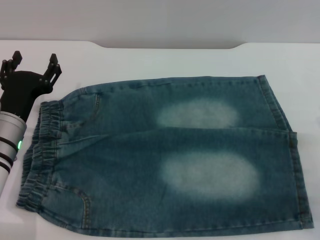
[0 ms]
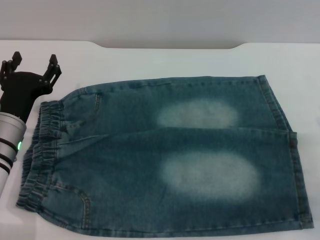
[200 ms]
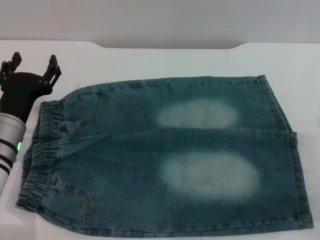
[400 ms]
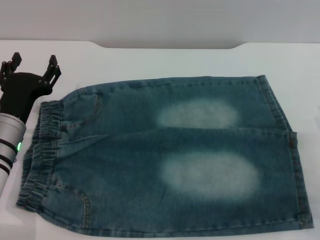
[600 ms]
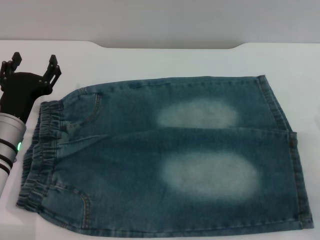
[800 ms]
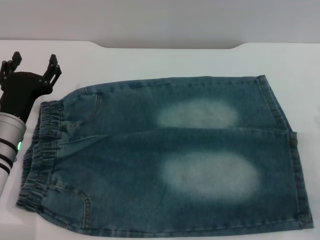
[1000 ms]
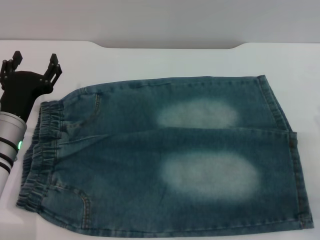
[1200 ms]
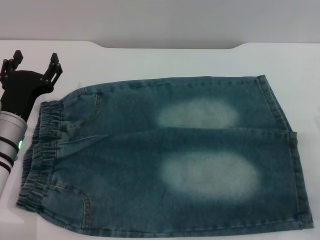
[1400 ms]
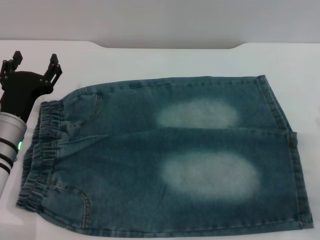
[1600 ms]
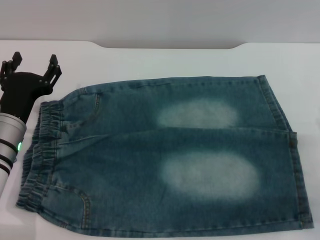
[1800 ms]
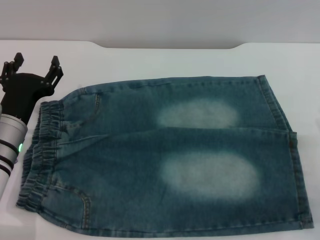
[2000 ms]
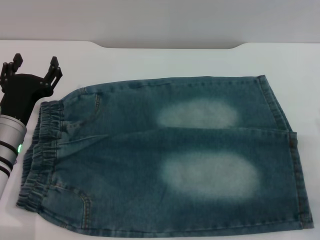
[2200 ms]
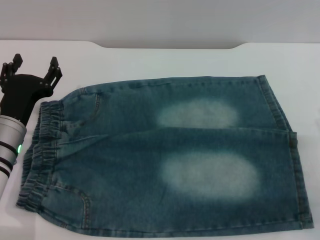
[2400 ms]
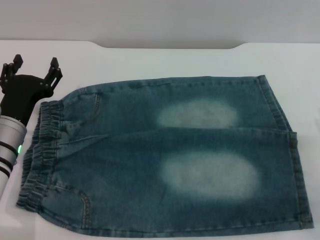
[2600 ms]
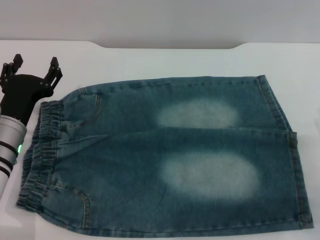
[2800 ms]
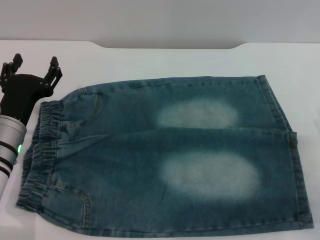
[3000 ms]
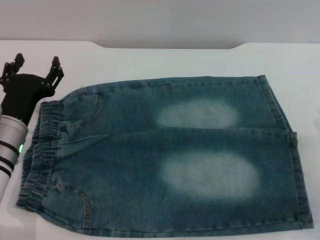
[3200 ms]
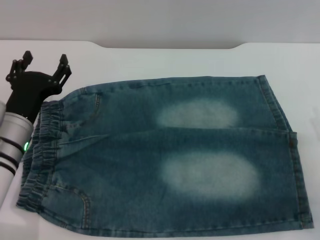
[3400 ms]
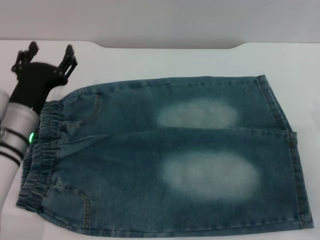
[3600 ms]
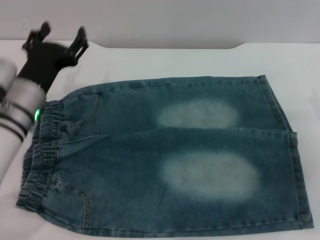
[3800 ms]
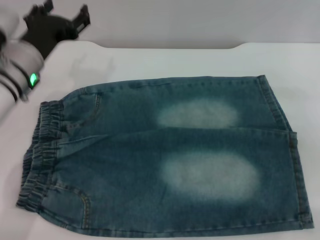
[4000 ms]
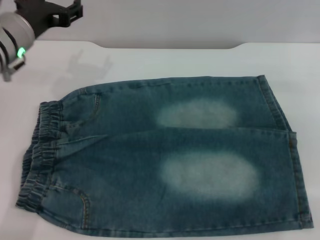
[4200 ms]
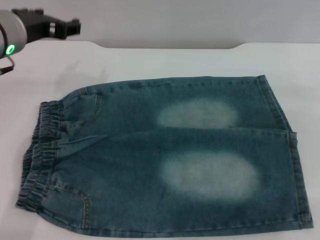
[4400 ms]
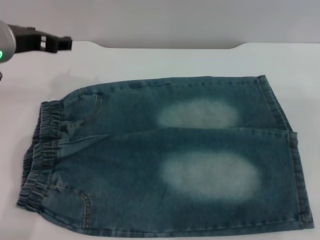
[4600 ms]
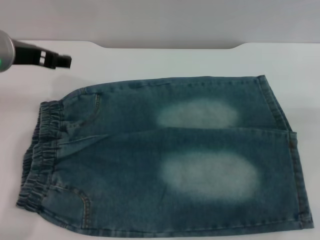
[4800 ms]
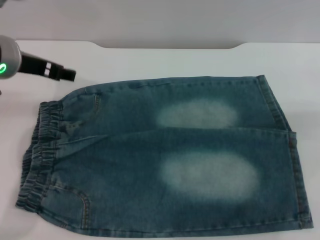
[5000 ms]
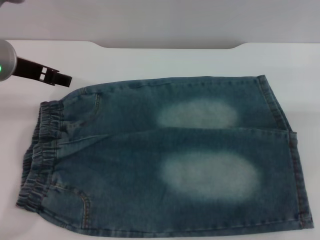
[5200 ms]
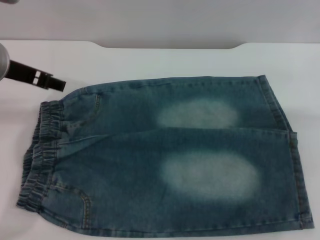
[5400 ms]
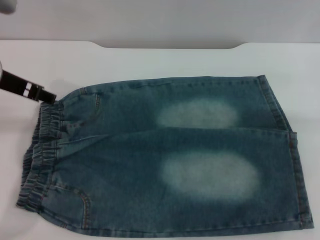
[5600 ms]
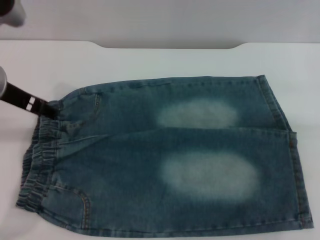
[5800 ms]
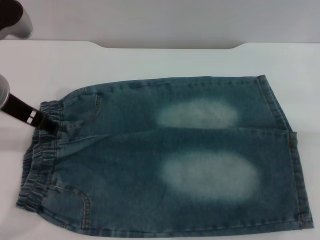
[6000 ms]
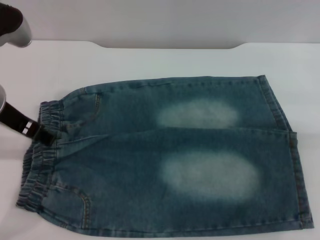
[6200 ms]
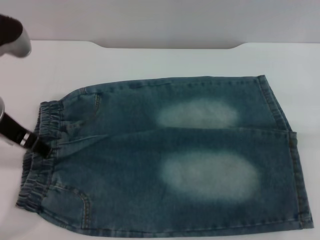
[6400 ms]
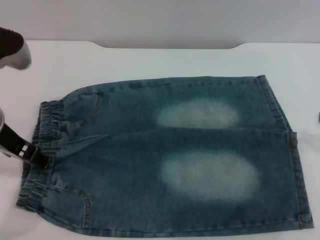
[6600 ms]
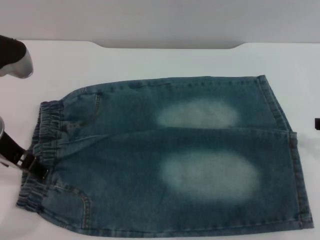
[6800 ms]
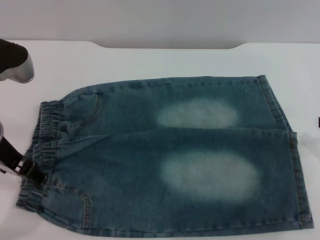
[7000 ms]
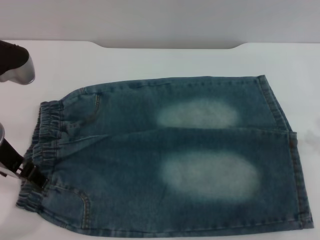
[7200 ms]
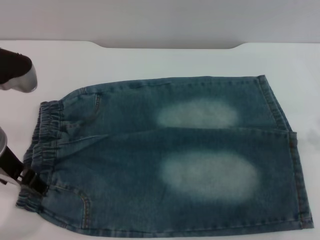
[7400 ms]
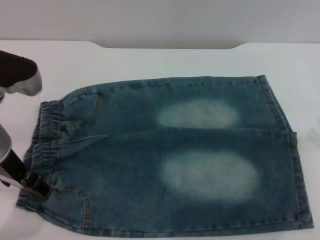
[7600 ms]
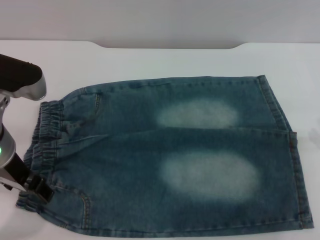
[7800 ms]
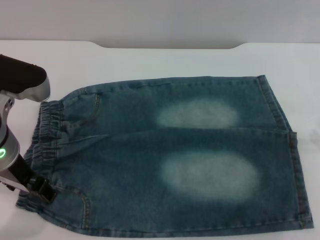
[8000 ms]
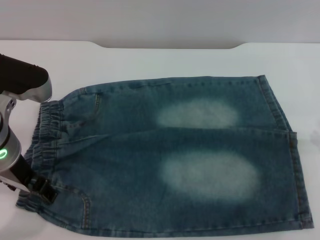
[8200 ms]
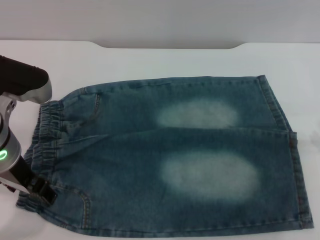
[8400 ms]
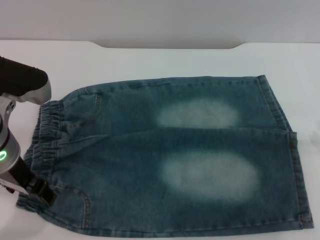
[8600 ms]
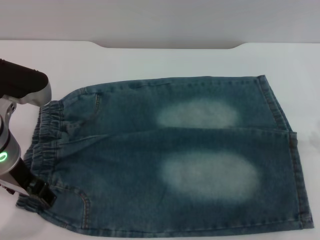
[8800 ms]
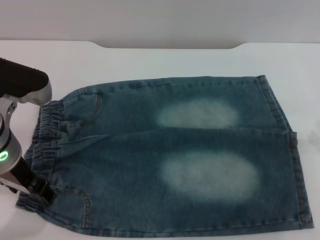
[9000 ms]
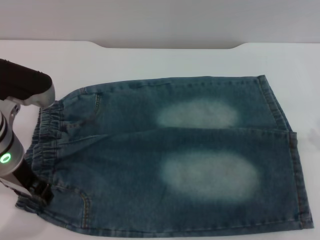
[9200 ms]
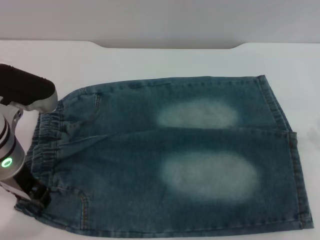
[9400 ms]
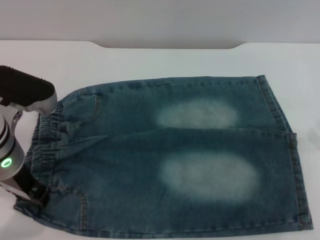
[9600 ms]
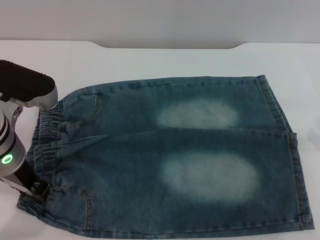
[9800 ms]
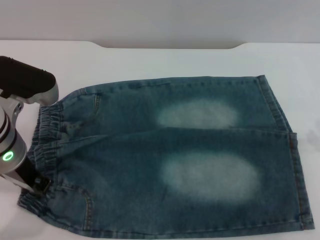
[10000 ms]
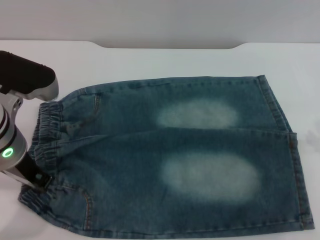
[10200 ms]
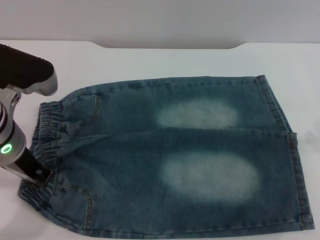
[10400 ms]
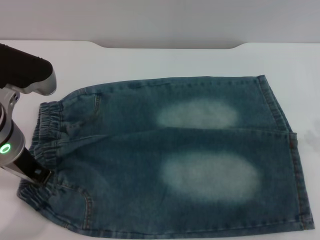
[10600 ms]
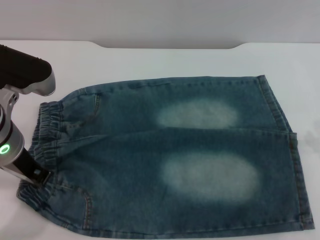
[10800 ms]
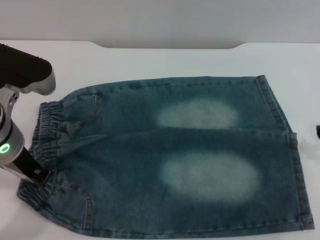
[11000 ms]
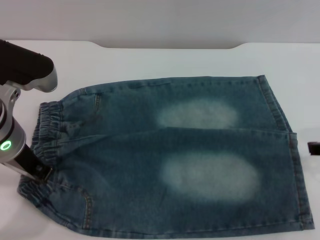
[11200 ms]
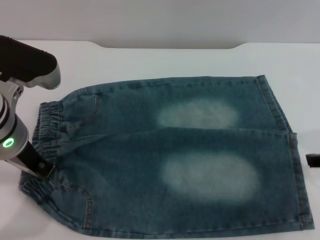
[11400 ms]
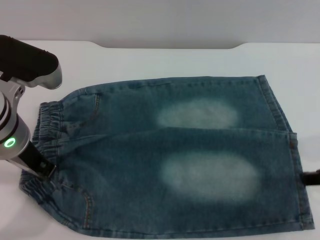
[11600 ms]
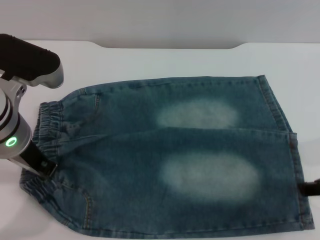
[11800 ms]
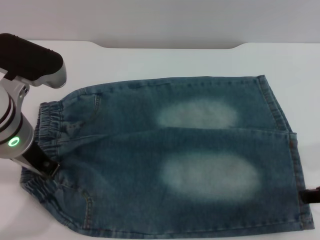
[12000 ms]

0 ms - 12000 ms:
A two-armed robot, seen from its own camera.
0 ms - 3000 ms: The two grippers keep their place.
3000 ms - 4400 ms: The left gripper travels upward by roughly 15 cm.
6000 ms - 7600 ms: The left gripper closes, then opens again.
7600 ms - 9000 ms: There are only small adjustments of the grippers.
9000 ms - 10400 ms: The left gripper closes its fingers.

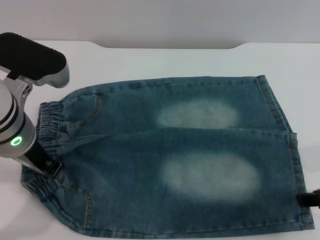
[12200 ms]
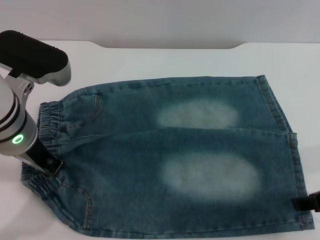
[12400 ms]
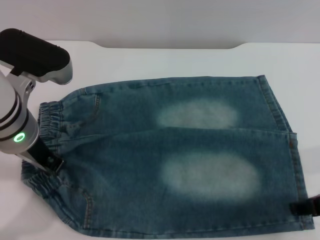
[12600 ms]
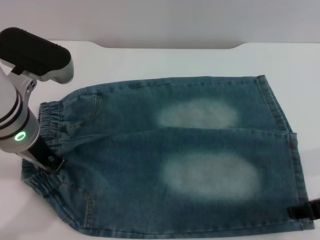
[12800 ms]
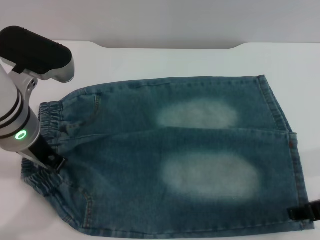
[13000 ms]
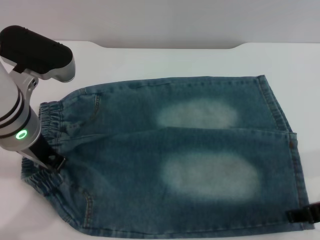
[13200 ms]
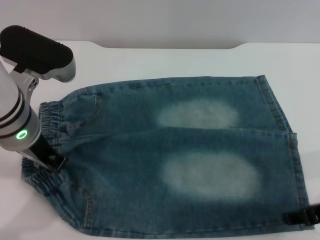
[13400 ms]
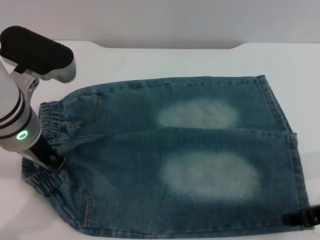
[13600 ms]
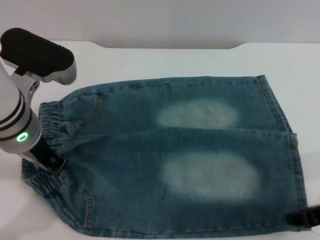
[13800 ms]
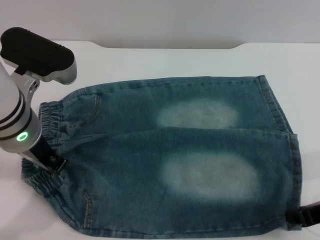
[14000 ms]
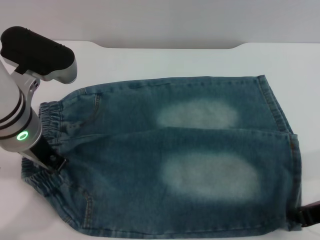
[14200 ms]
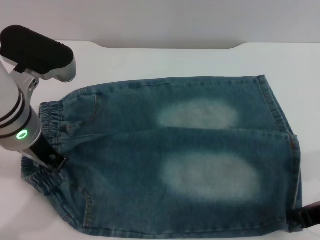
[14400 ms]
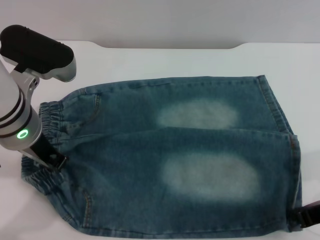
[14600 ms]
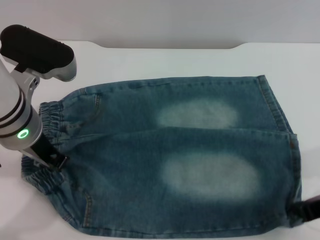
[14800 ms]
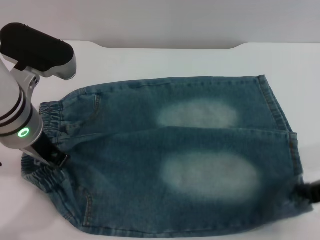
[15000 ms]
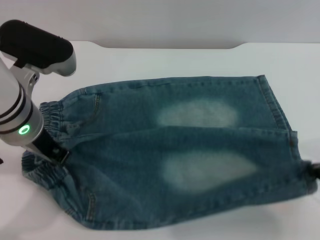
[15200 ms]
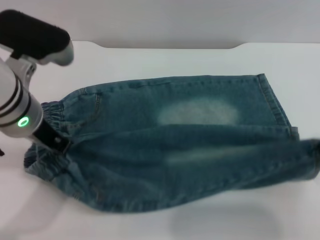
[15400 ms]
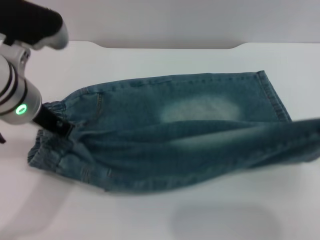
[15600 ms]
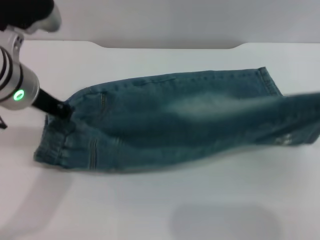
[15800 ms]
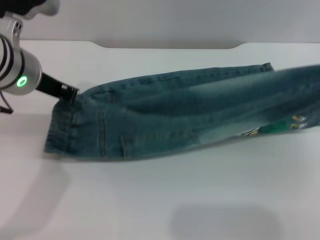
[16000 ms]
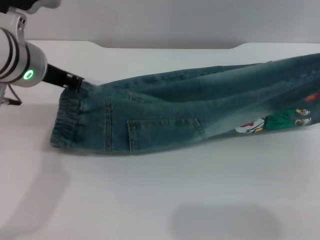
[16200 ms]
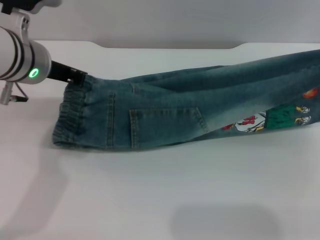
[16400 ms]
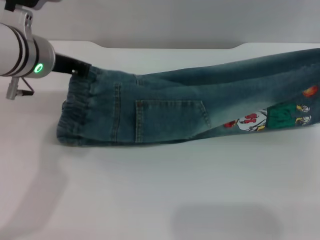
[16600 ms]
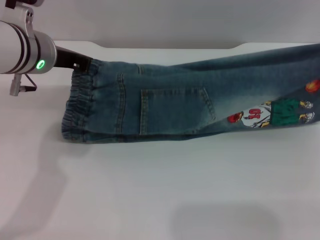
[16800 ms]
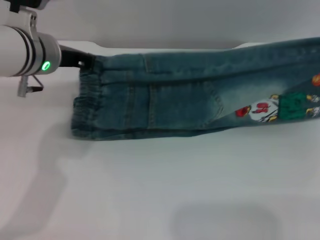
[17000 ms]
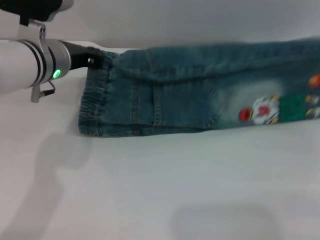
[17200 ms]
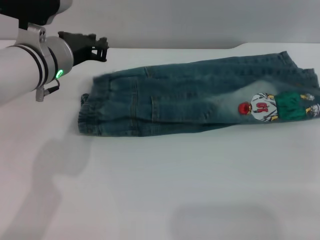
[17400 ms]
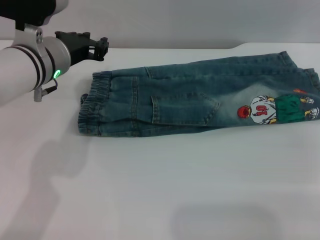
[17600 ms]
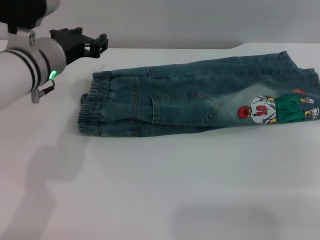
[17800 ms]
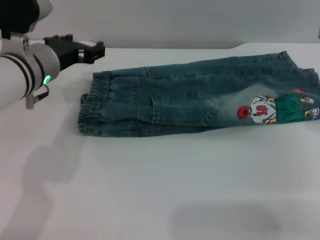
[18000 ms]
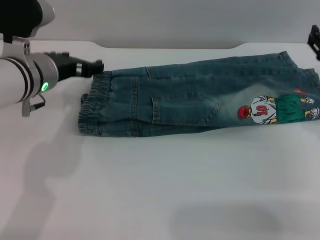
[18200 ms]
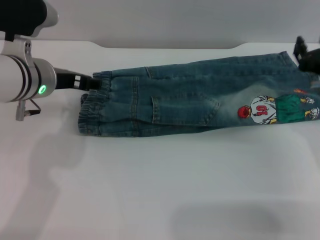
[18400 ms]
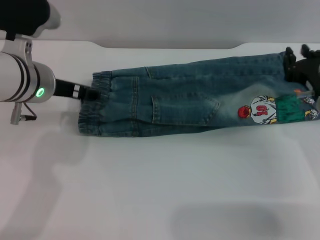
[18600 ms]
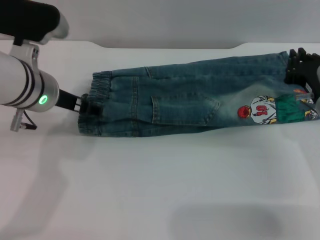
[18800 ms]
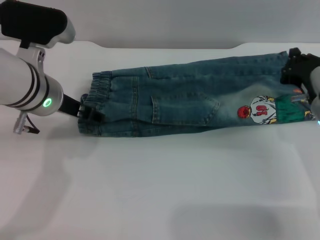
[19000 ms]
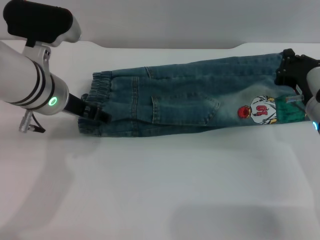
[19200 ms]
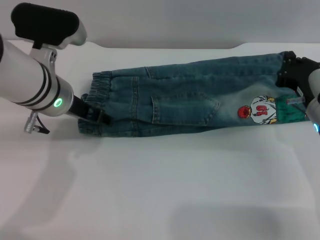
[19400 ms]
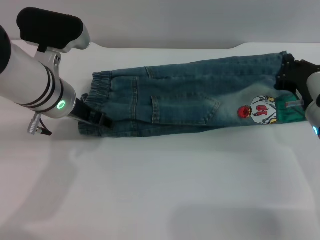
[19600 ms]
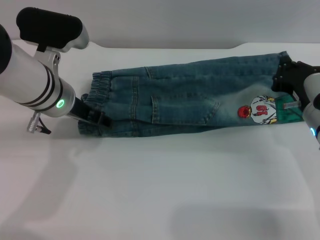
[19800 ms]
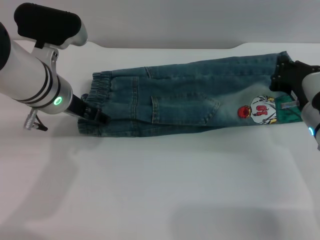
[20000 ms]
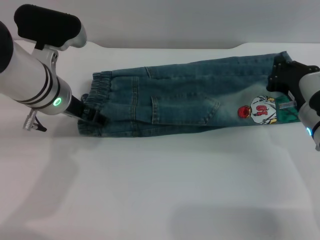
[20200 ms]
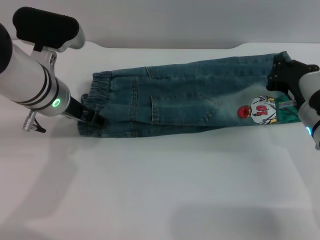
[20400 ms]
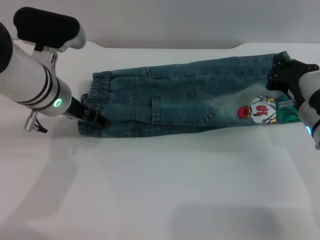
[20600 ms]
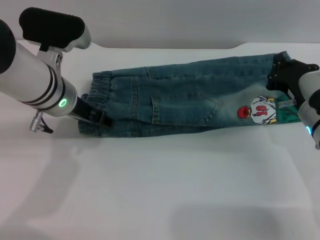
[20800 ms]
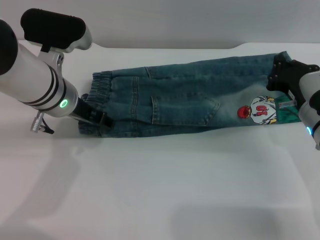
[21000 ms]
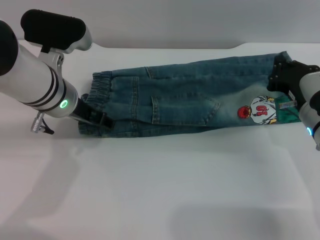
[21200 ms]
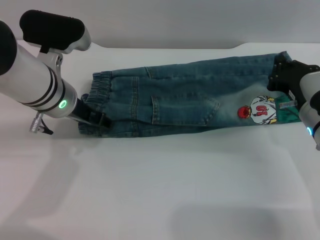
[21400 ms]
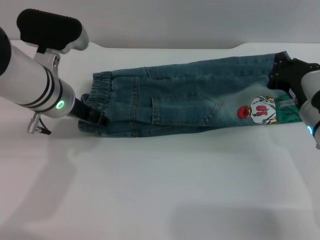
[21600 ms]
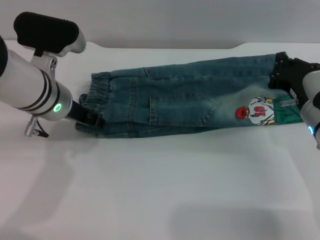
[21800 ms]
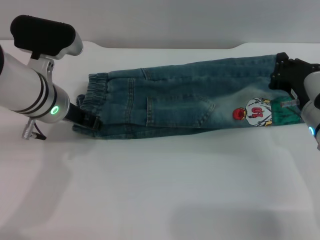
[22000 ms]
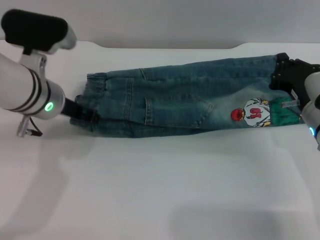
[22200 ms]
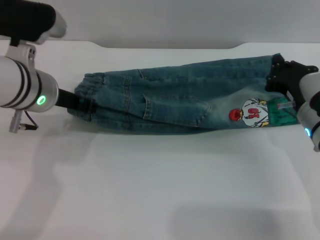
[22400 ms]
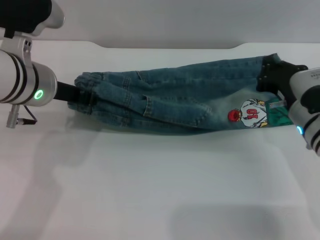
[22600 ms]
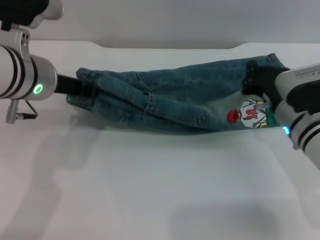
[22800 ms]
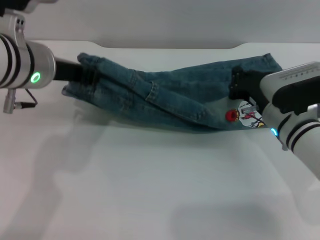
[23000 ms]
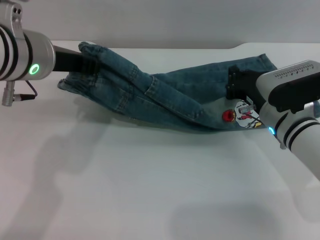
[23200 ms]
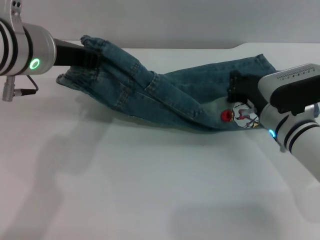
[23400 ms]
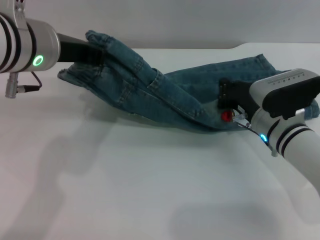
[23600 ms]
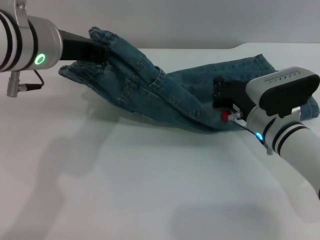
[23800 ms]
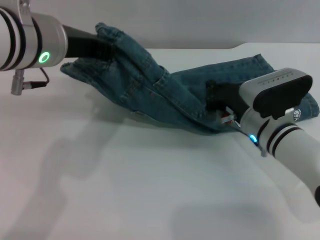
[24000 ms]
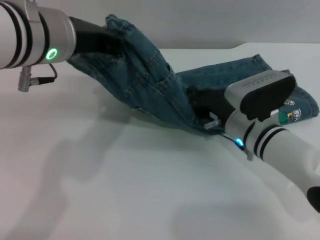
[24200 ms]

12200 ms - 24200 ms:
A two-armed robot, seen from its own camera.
Step, 12200 ms - 17600 ms: Fold the bottom of the pants upward with both grippers.
12200 ms - 13800 ms: The grippers move only a little.
13800 ms - 15200 ms: The right gripper shifts by approximately 5 cm, and closes its fingers.
15200 ms - 16600 ms: The right gripper goes roughly 10 cm forward and to the right. The left gripper travels forward by approximately 5 cm.
16600 ms - 18200 ms: The right gripper goes approximately 10 cm downward and to the left, and opens; the left gripper moves downward, approximately 5 cm, and opens up.
18200 ms - 19800 ms: The right gripper goes approximately 5 cm downward, and closes up.
19800 ms - 21200 ms: Neither gripper changes place.
21200 ms - 22600 ms: The left gripper ends up approximately 5 cm from where it was, and closes.
22600 ms - 24200 ms: The left gripper is displaced upward by some 5 cm. The right gripper travels to the left by some 10 cm.
